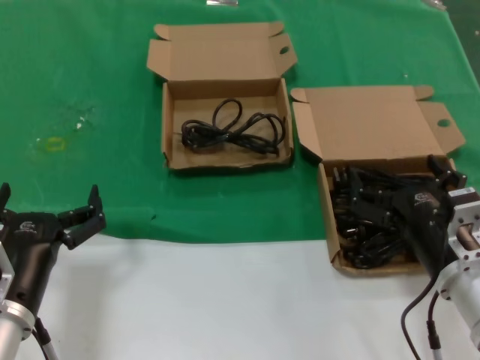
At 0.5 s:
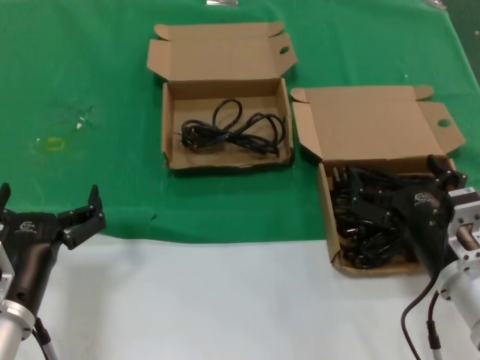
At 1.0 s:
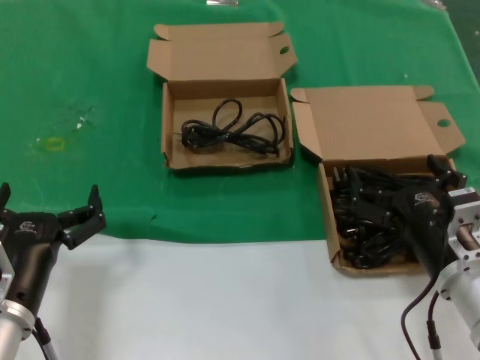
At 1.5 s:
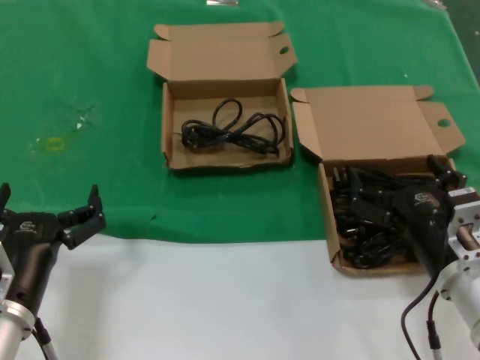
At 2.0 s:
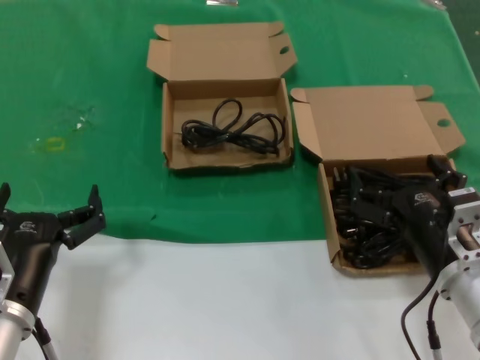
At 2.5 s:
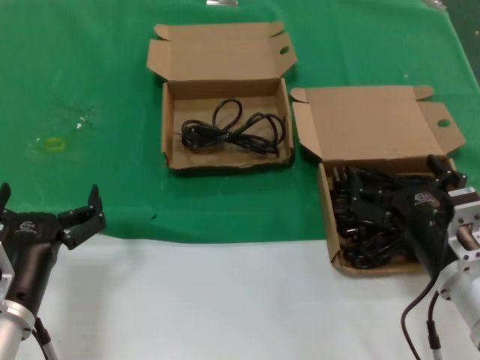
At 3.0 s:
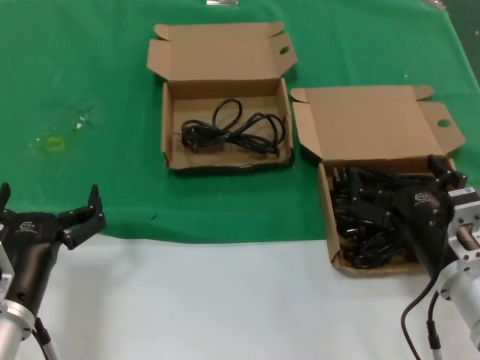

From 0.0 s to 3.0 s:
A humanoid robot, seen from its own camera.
Task of the whole recording: take the parts from the box containing them and put them into an empty box.
From 0.0 s to 3.0 s: Both hands stay about where they are.

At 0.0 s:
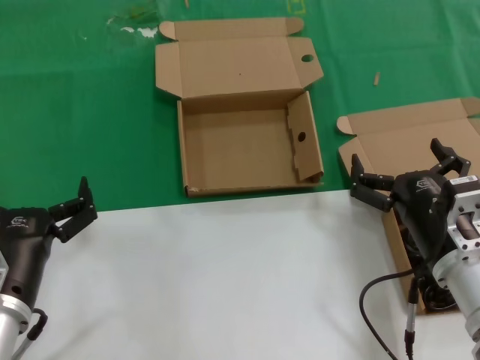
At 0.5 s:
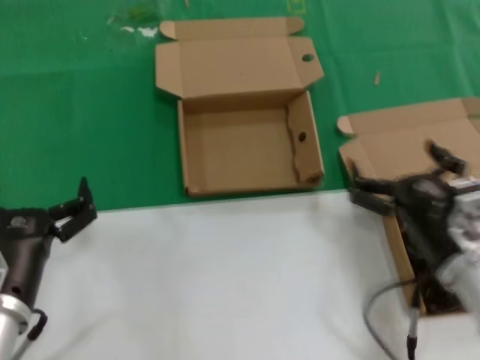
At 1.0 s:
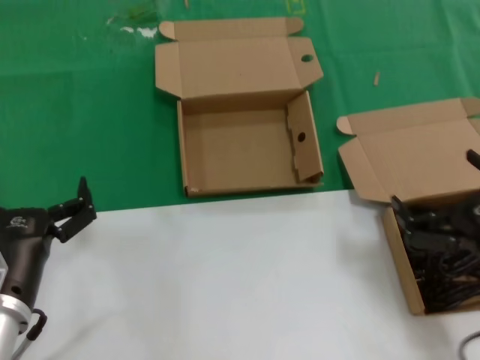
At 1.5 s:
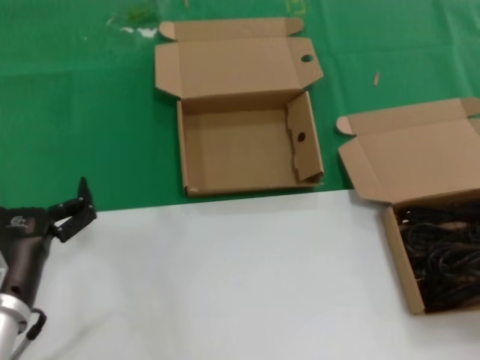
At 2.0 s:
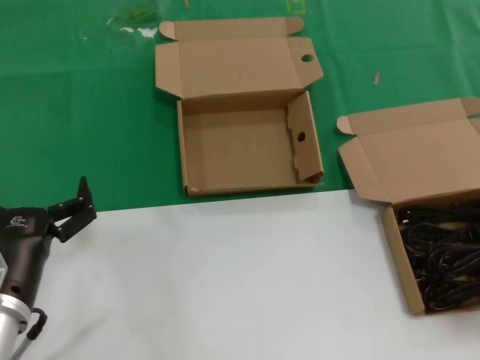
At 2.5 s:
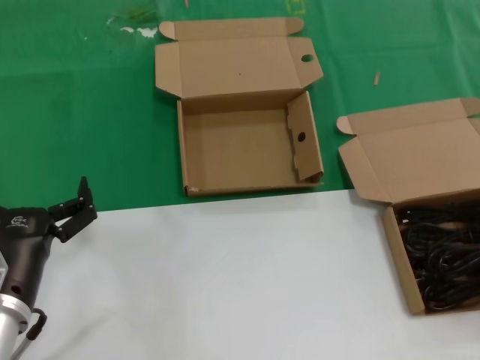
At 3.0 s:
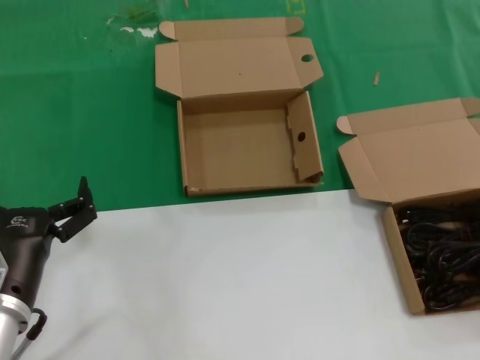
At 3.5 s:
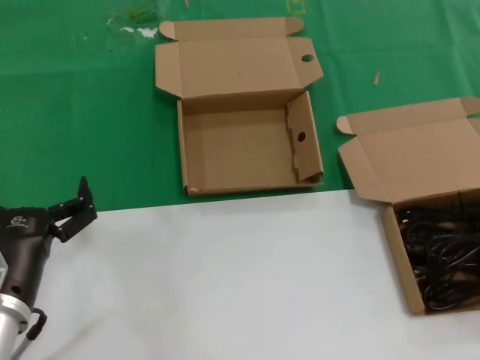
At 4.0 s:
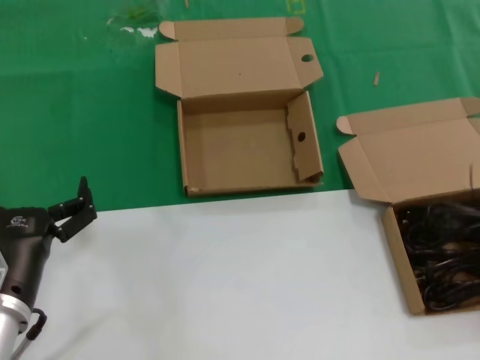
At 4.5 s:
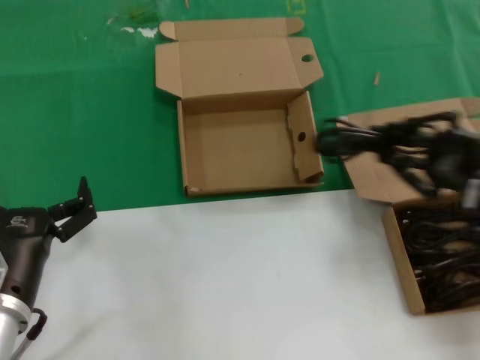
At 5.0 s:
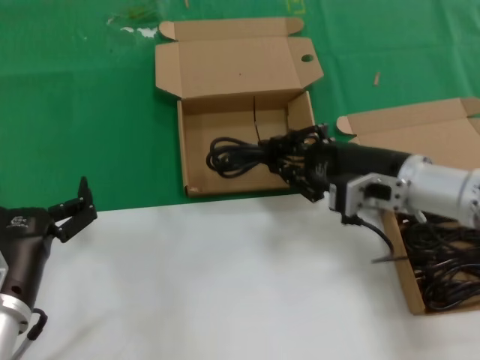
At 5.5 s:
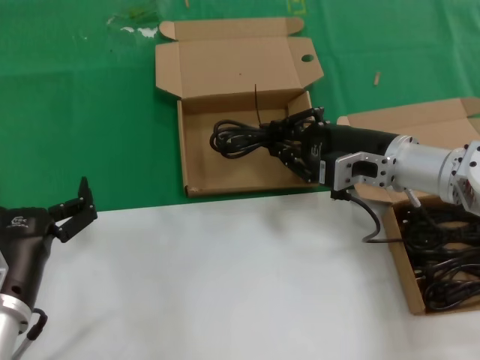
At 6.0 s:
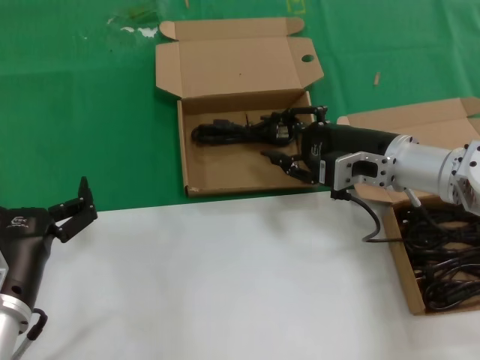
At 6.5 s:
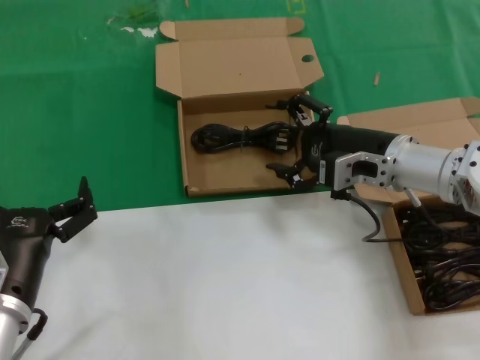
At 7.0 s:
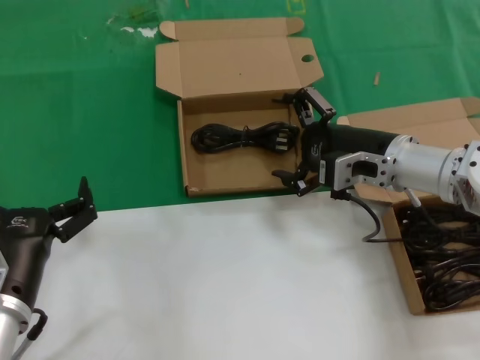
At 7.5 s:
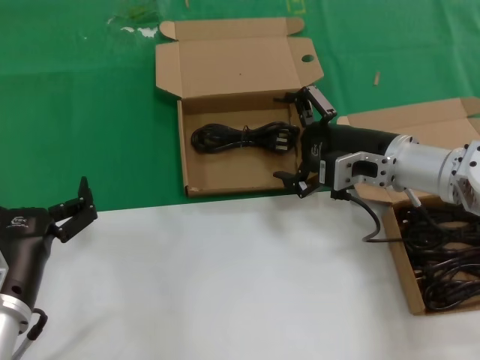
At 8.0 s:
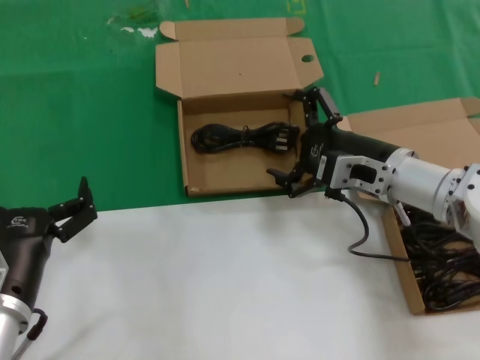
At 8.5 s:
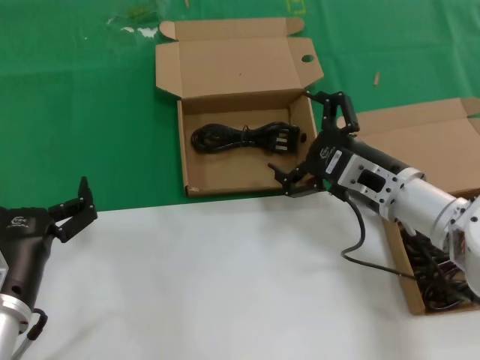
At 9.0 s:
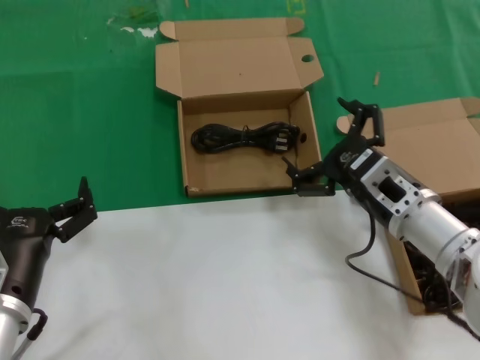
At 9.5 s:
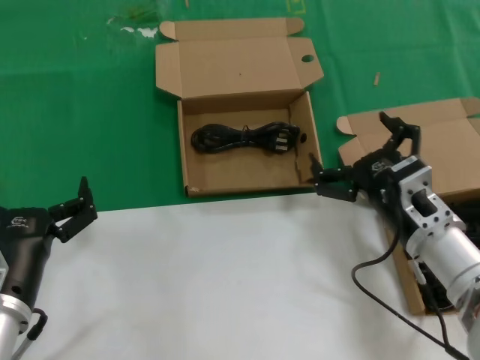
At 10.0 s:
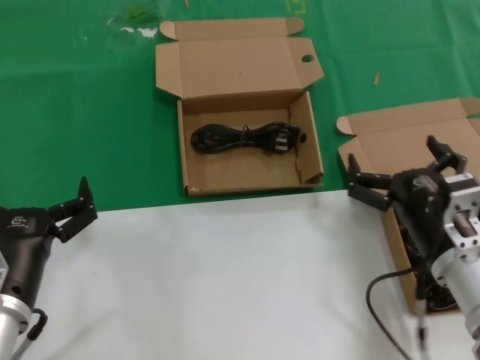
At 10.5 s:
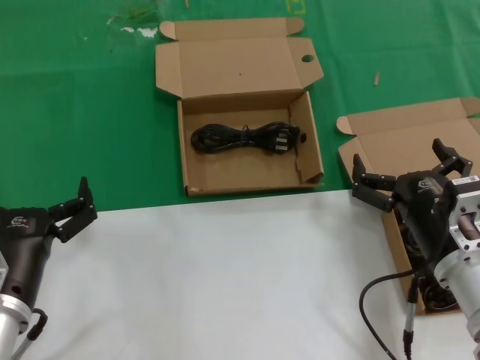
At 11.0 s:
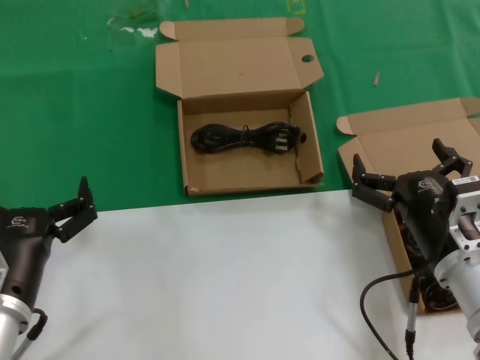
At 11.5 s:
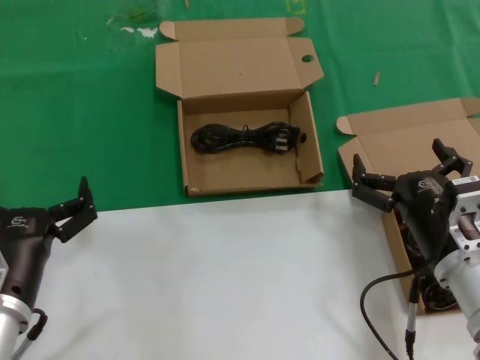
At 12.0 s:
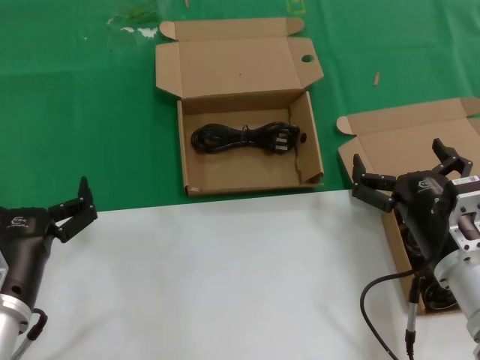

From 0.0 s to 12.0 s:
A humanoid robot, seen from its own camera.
Task of the whole recording: take the parts from the box containing them and put them into an empty box.
Step, from 0.0 s to 3.5 s: Grasp the data cable.
Step, from 4.0 s to 7.5 s: Place the data cable in the another box.
From 0.0 s to 2.0 s: The right hand is displaced to the right and upward by about 25 cm.
From 4.0 s to 6.0 s: The right hand moves to the left and forward, approximately 30 cm.
From 6.0 s to 8.0 s: The hands move only a little.
From 8.0 s to 10.0 s: The right hand moves backward and downward, about 15 cm.
From 10.0 s to 12.0 s: Both hands stay put.

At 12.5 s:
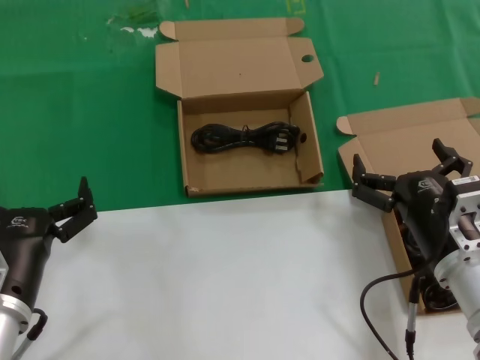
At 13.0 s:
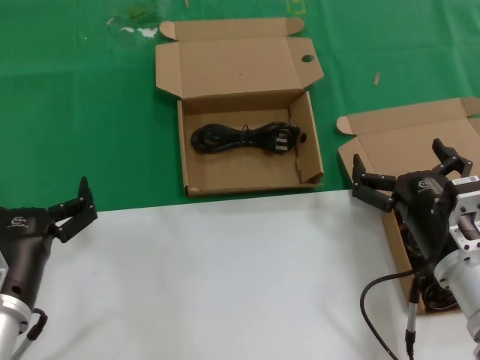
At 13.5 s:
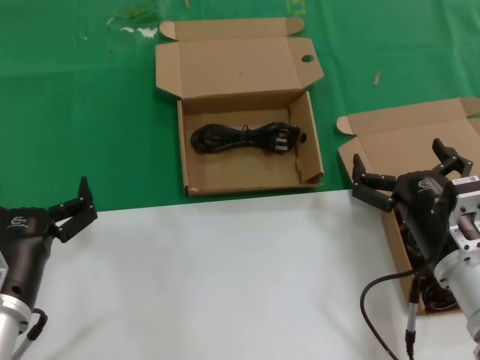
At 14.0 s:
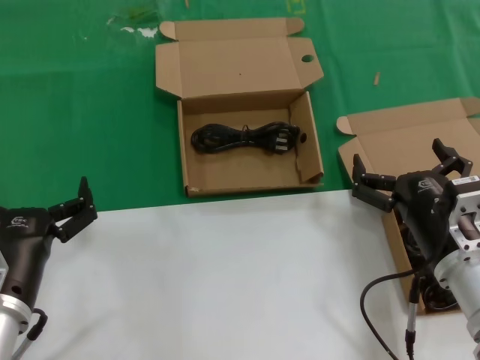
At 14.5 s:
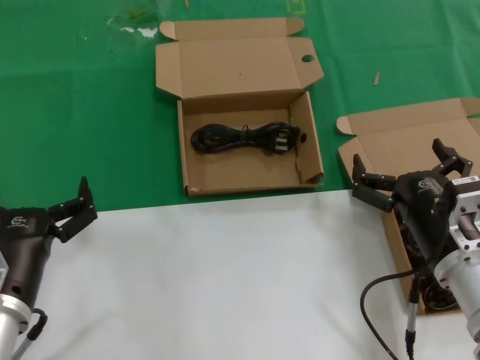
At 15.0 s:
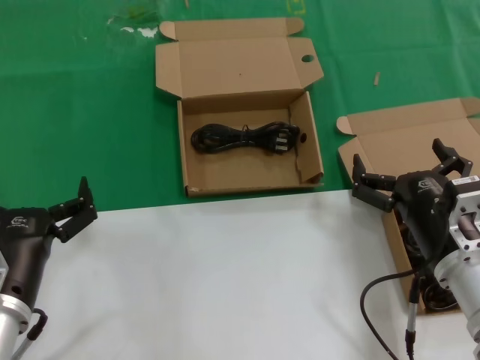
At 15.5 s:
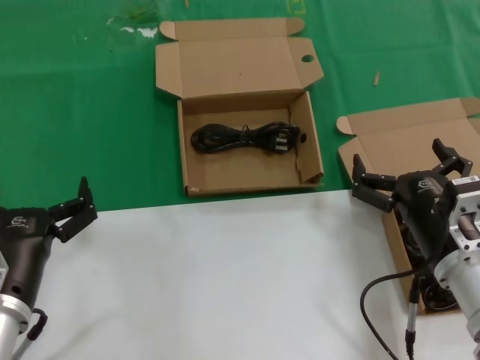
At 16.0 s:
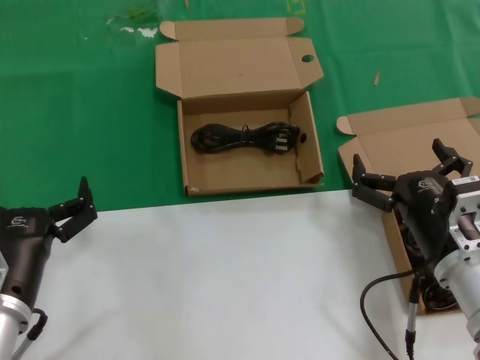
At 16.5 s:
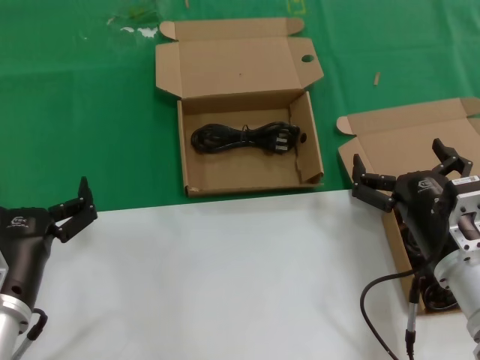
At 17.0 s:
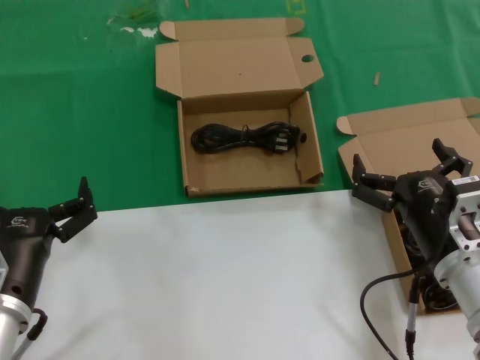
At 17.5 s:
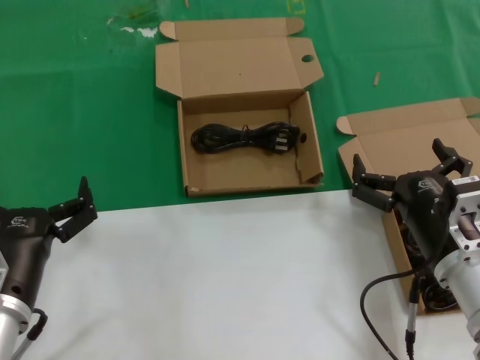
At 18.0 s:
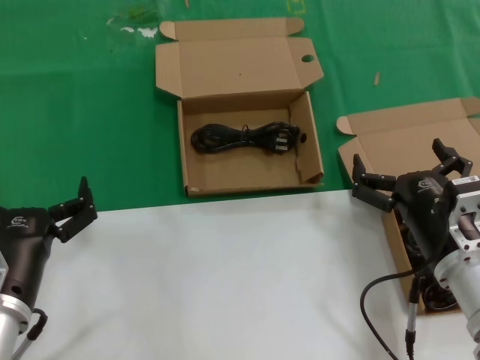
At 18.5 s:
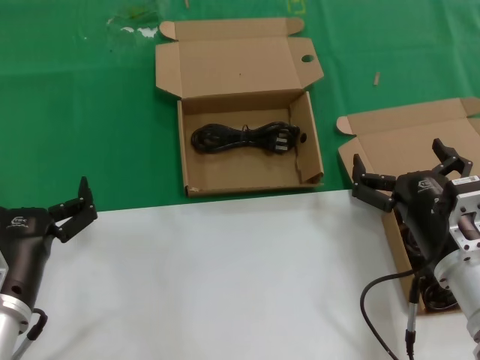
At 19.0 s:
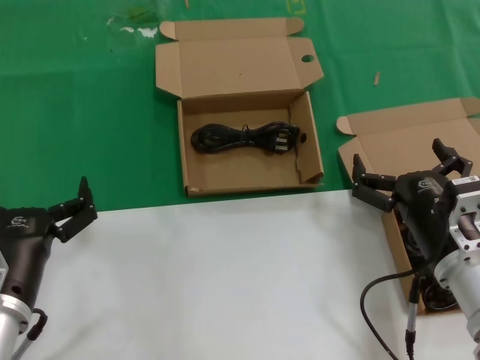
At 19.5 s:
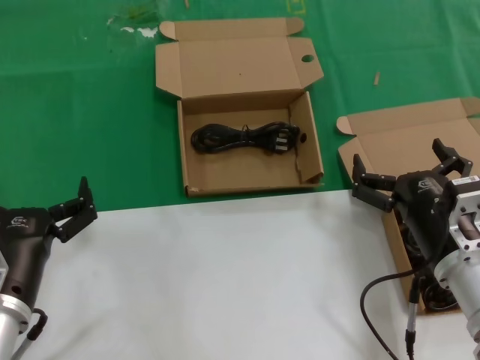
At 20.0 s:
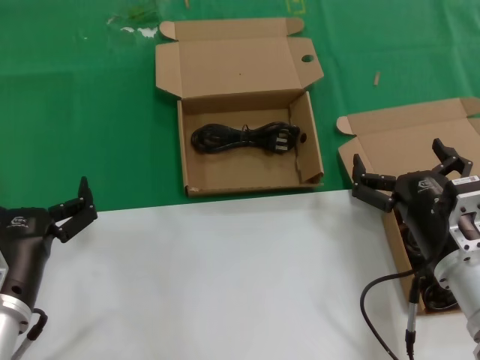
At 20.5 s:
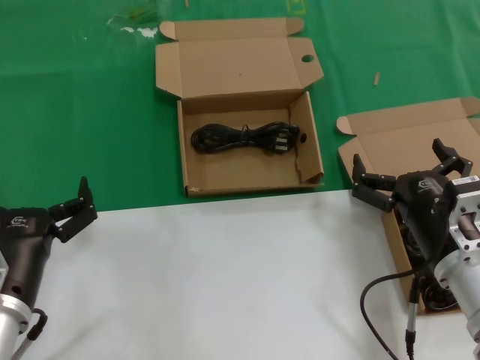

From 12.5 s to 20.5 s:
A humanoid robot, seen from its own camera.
Task of the whole recording: take the parts from the box containing them and put them into an empty box.
From 12.5 s to 20.5 s: The two hands keep their place.
